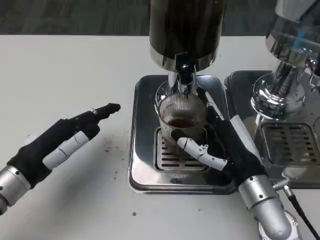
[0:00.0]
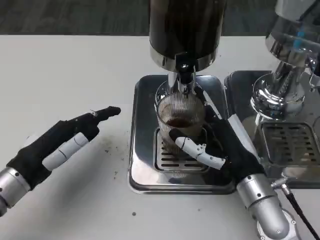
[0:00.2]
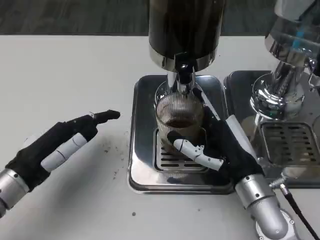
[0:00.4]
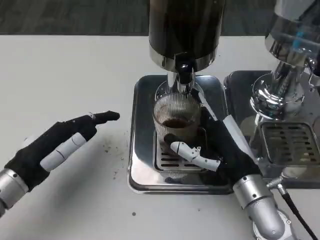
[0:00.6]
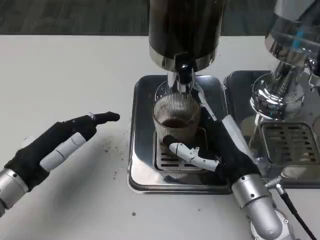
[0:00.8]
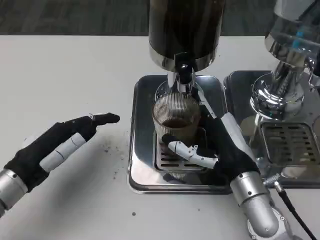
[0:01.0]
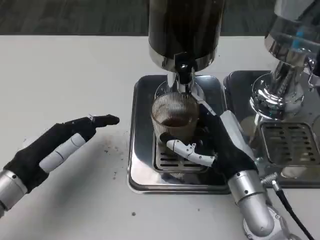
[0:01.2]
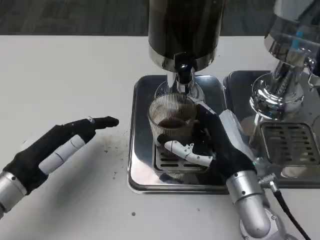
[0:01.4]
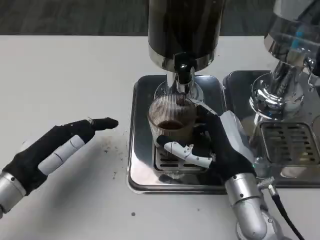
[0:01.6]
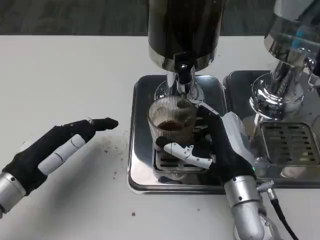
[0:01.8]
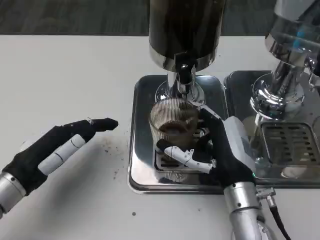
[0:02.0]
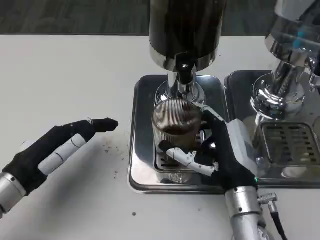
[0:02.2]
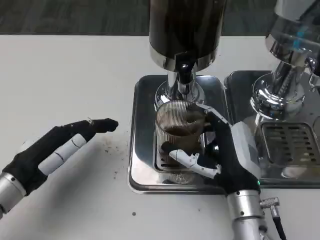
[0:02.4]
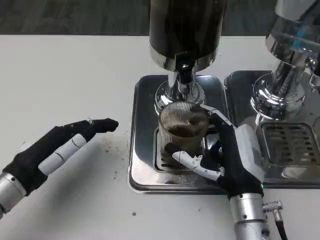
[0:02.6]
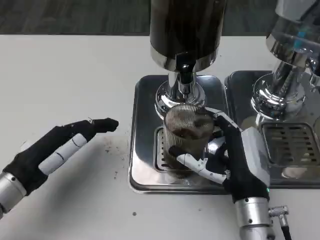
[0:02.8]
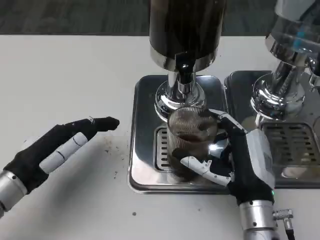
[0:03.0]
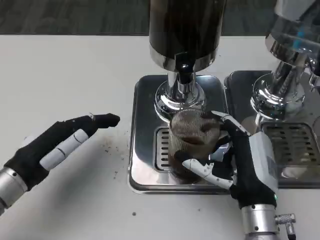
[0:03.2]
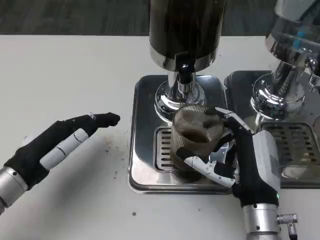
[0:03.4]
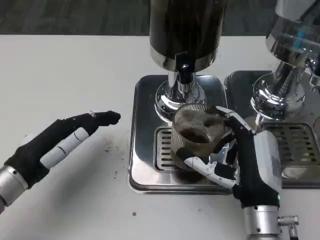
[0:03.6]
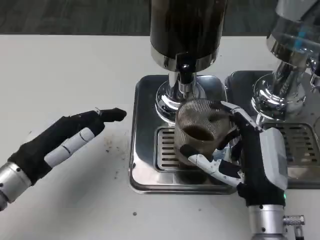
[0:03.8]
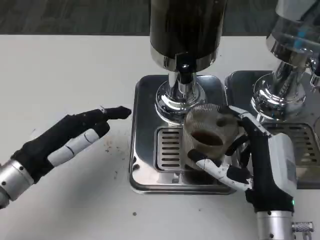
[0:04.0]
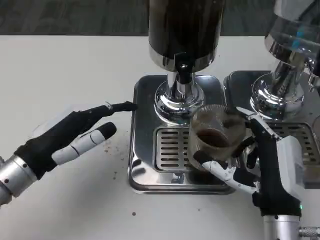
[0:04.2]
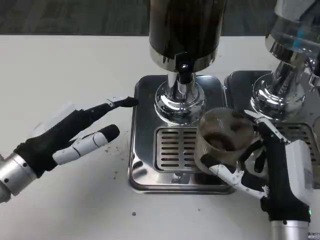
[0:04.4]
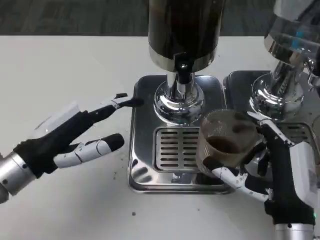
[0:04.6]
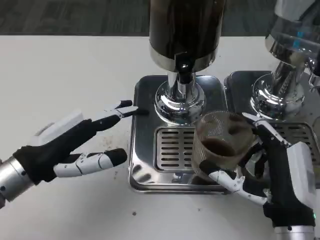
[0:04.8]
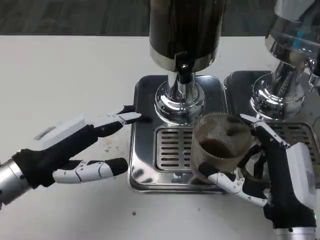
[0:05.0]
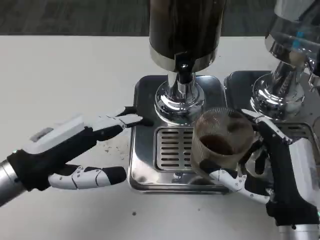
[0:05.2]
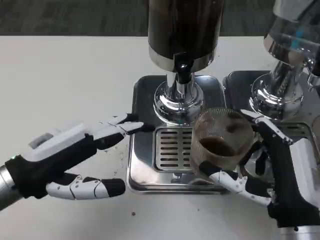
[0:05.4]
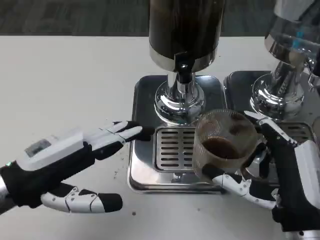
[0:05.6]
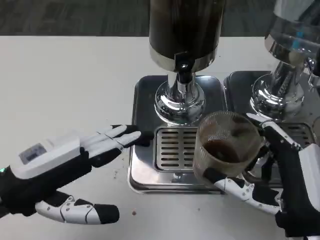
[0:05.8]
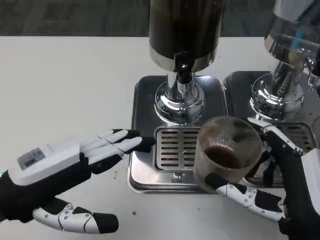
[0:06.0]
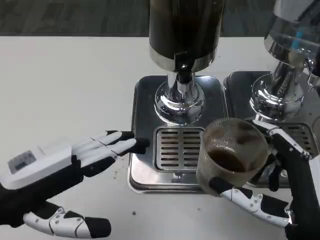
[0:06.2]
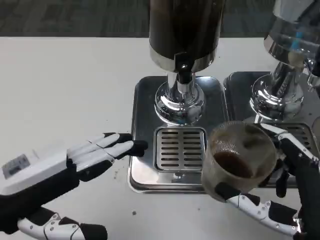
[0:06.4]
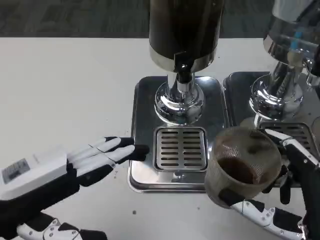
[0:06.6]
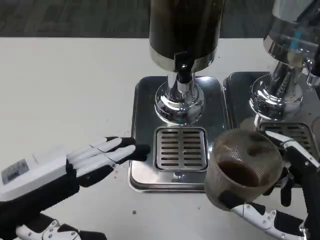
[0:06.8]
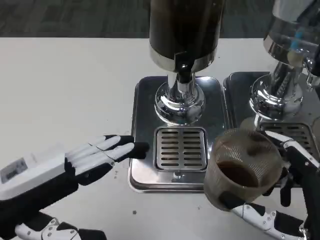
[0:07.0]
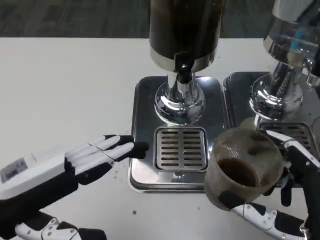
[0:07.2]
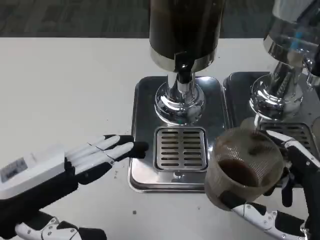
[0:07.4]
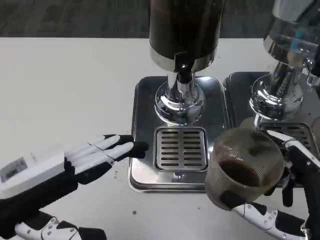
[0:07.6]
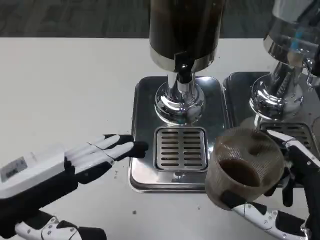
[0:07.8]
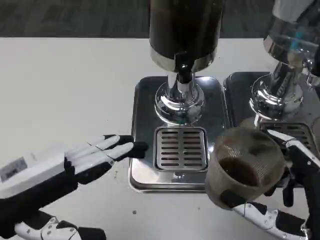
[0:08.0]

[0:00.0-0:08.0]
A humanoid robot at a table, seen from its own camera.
Task of the whole recording: Grasp the cup under the faucet to collect the drink, then remove the cup.
0:00.0 to 0:01.6: The hands move only a little.
0:01.6 to 0:03.2: The hands make only small movements.
0:03.2 to 0:04.8: The right hand shifts by about 5 cm.
0:04.8 to 0:06.4: The hands both shift backward by about 5 cm.
0:06.4 to 0:08.0: The two hands keep their place.

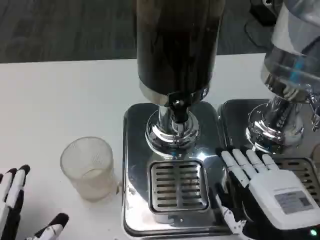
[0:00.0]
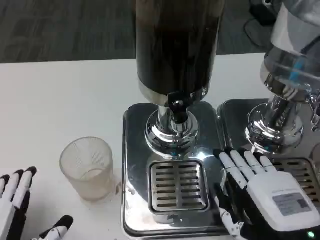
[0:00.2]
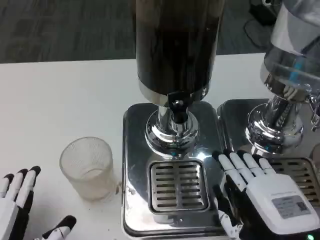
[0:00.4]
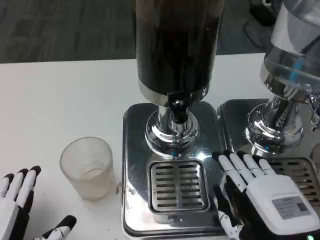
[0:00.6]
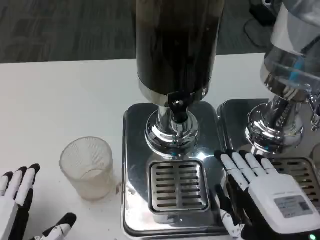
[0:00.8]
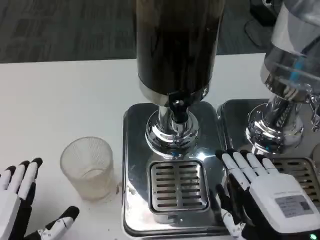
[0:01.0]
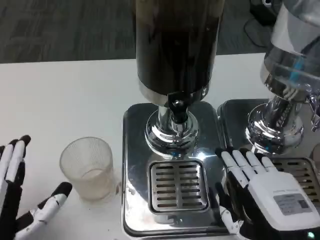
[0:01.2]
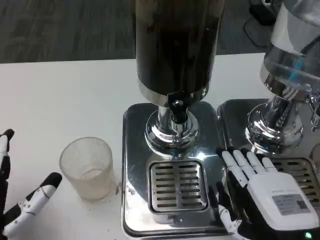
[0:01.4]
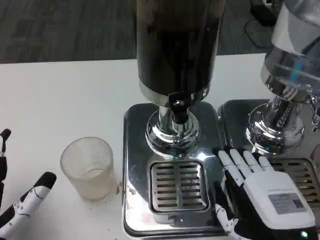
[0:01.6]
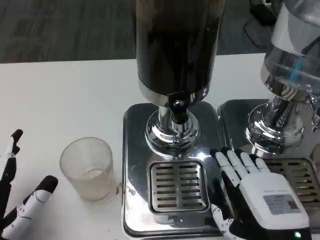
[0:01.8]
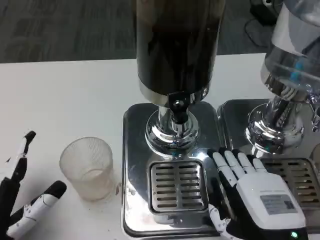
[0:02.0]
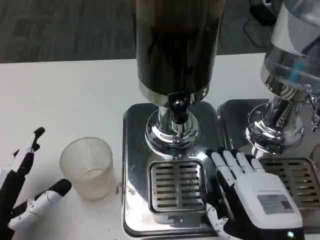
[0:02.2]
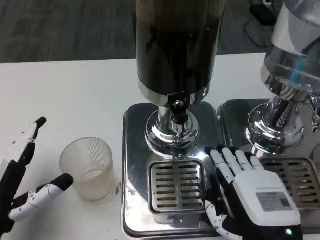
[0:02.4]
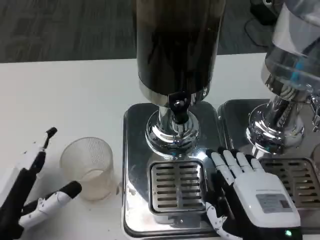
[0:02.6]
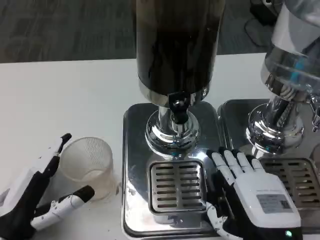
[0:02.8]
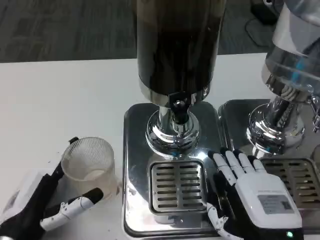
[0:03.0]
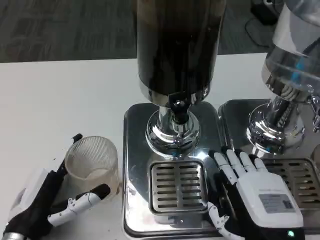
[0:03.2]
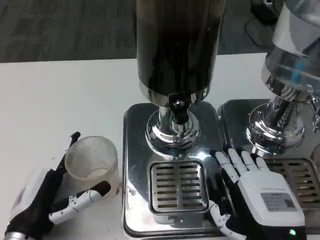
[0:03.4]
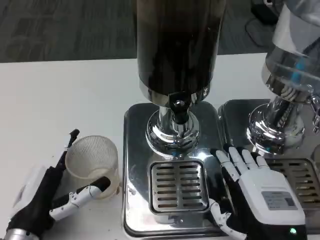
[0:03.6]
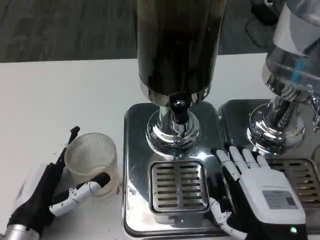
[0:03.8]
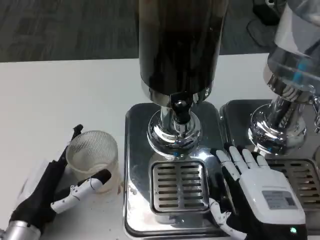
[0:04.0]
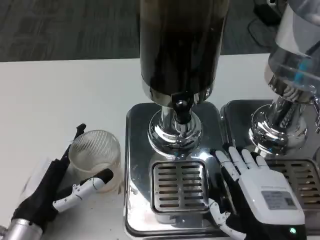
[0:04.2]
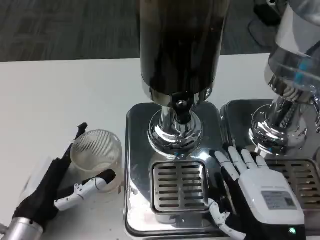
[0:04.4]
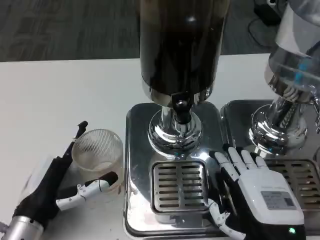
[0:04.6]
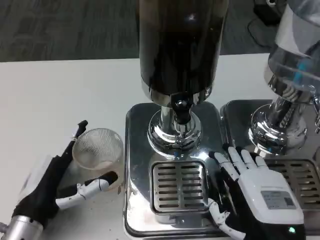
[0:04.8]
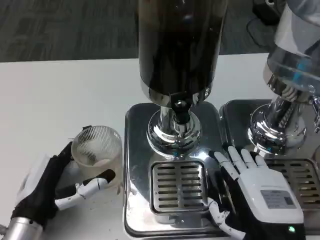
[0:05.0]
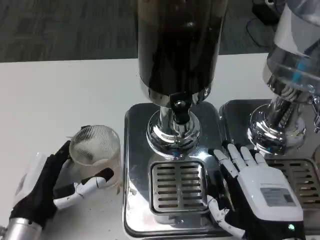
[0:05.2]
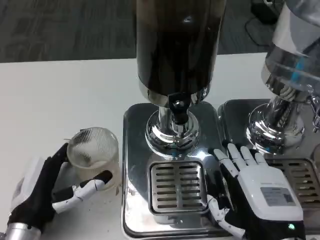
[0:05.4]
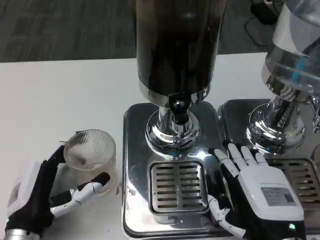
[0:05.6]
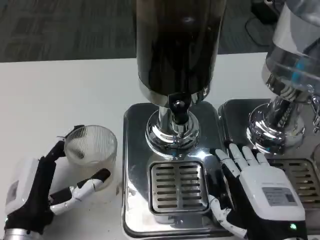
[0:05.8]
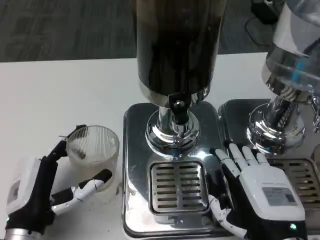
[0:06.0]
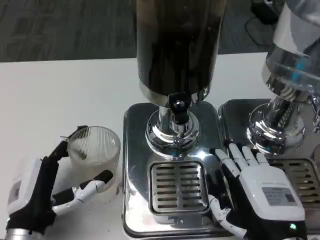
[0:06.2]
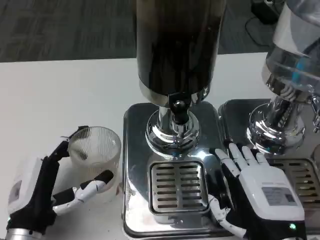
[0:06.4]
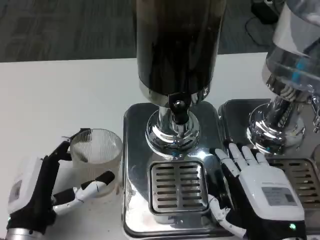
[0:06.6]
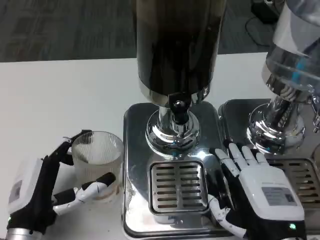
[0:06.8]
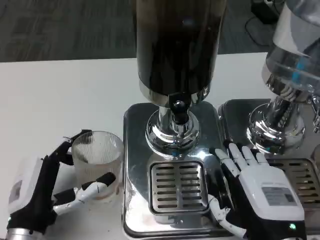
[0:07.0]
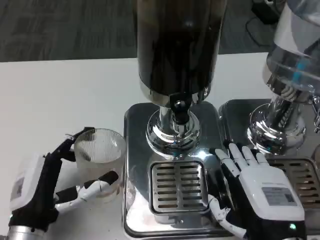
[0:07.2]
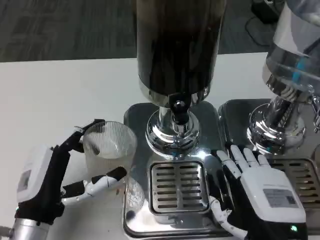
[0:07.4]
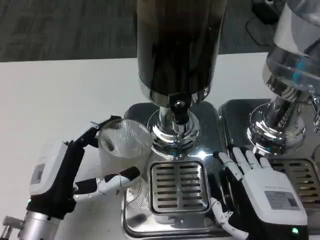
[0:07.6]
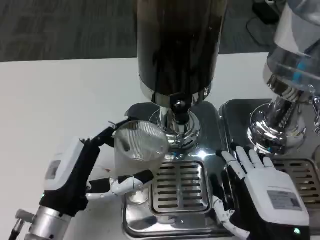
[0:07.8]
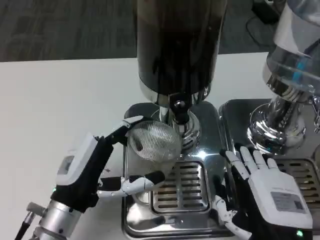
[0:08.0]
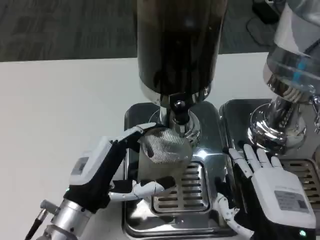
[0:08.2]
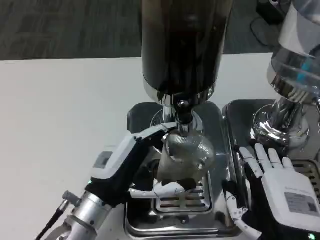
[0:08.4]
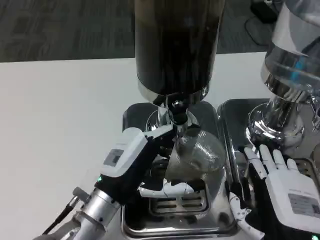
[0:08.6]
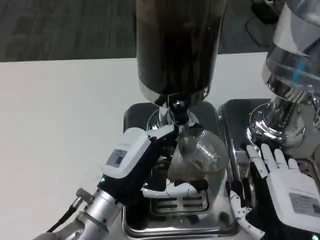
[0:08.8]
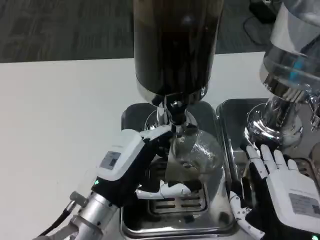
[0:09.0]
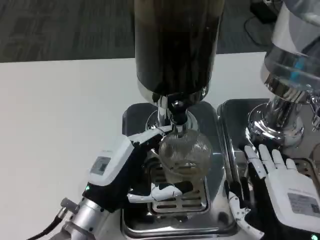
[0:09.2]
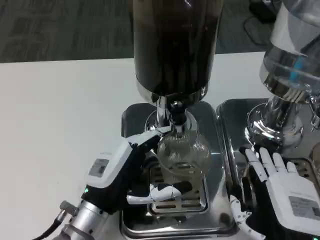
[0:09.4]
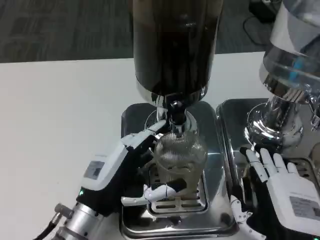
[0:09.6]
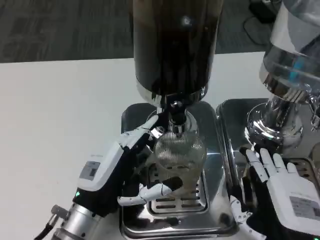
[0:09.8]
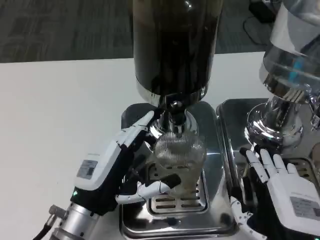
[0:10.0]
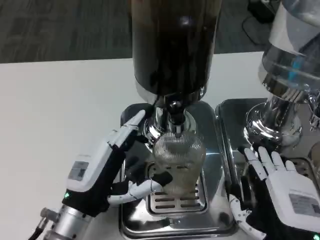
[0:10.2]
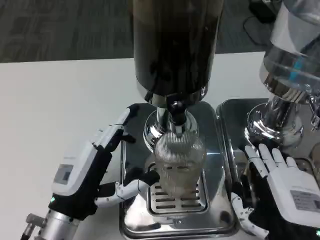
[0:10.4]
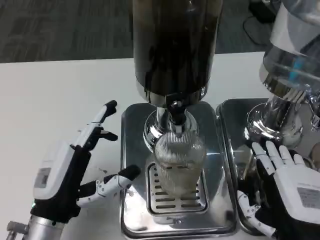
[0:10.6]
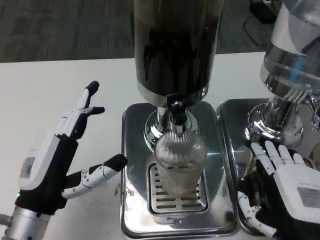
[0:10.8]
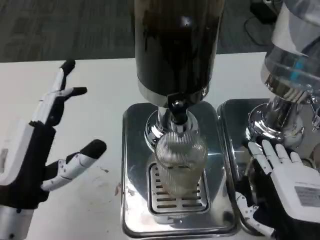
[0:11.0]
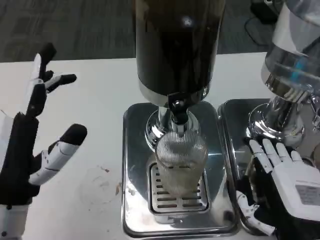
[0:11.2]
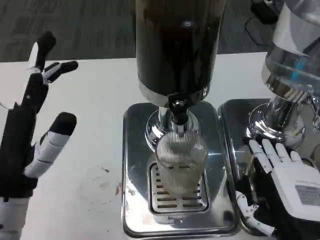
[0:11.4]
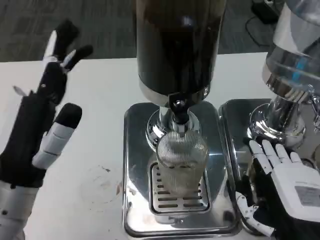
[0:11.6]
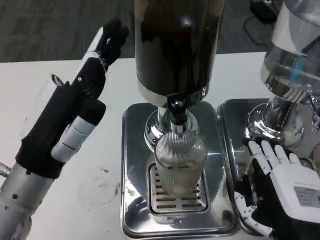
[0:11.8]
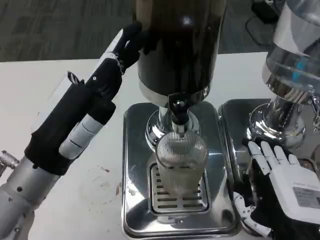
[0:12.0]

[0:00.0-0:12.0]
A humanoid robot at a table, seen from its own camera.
Task of the whole recording: Grasp the cup under the faucet to collect the drink, then remove the cup.
0:01.6 to 0:03.0: The left hand ends up about 5 cm from where it was.
0:06.0 to 0:07.6: The hands make only small movements.
0:07.6 to 0:09.0: The left hand shifts approximately 5 cm to the right.
0:09.0 to 0:10.4: The left hand ends up approximately 5 cm from where it was.
0:10.4 to 0:12.0: The left hand shifts roughly 10 cm upward.

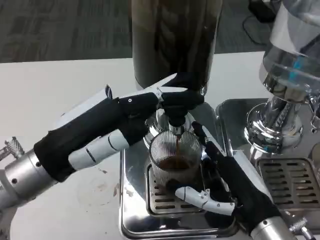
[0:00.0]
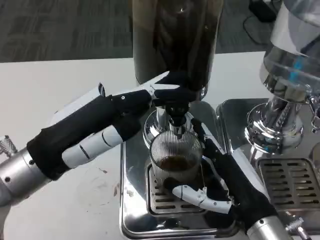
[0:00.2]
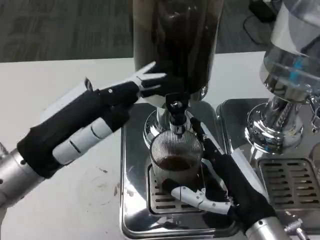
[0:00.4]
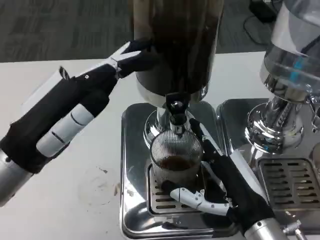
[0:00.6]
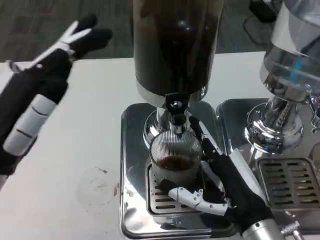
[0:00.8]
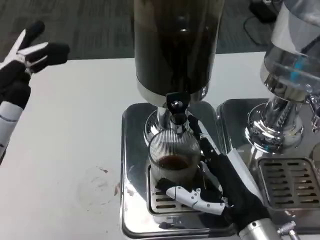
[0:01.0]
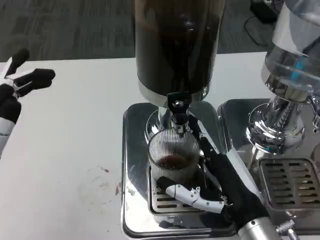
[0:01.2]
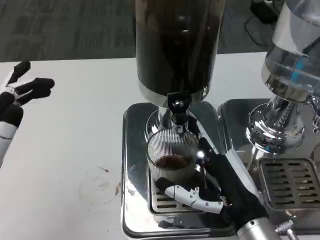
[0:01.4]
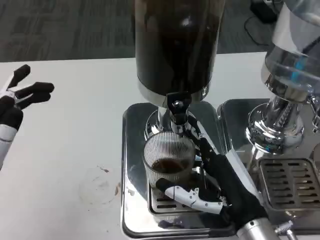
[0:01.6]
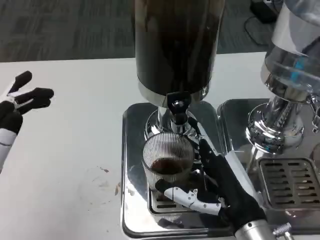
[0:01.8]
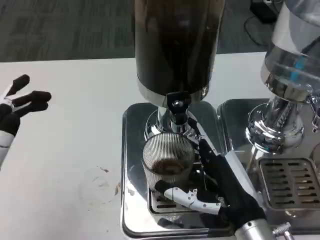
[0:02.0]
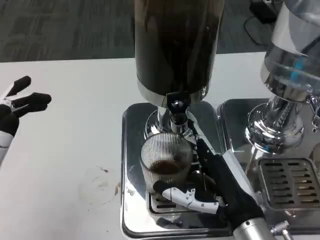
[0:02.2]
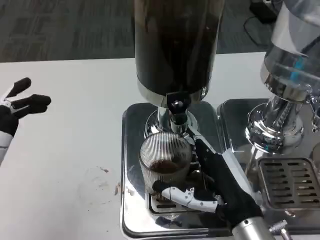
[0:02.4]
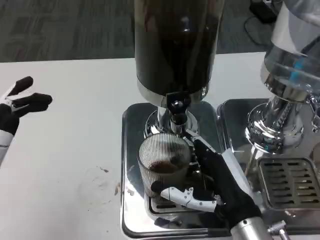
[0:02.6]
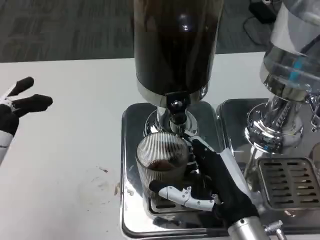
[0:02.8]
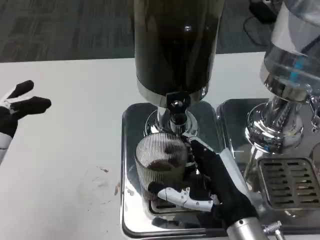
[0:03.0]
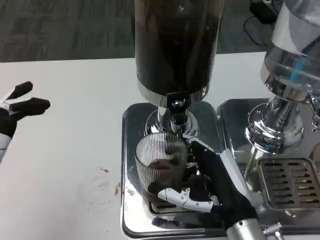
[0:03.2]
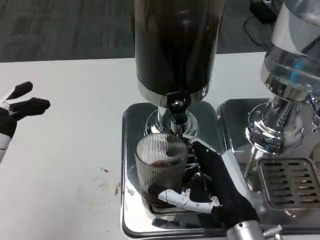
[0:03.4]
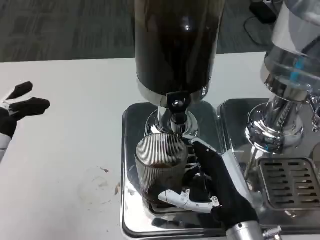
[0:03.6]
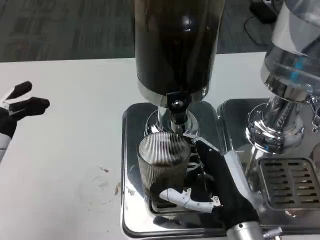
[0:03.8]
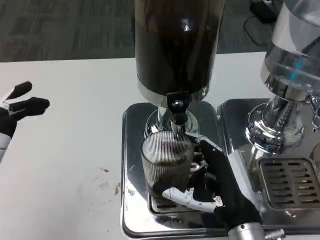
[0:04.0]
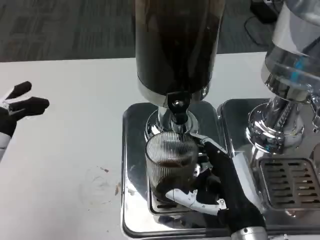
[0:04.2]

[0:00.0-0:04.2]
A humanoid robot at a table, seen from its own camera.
Task of the whole recording: Grasp the cup under the faucet to collect the drink, then remove the cup.
0:00.0 to 0:01.4: The left hand goes approximately 10 cm backward and to the left.
0:01.4 to 0:04.2: The hands stay close to where they were, moving slightly.
